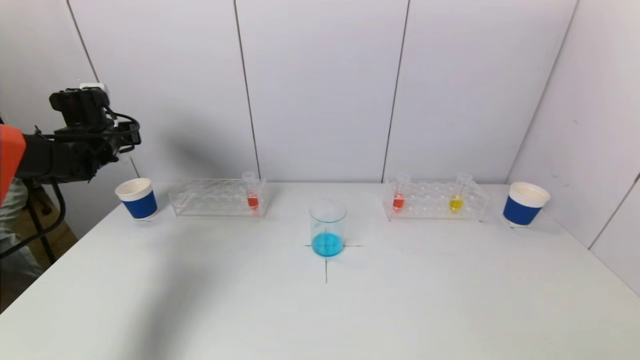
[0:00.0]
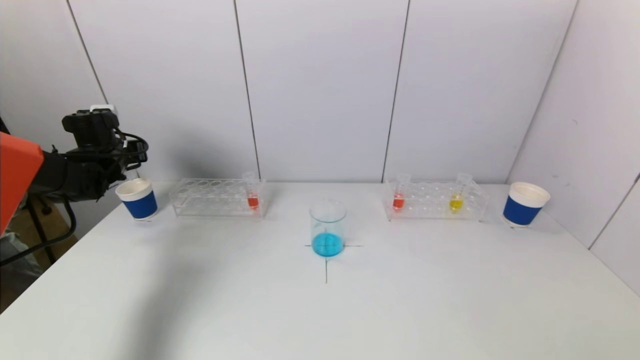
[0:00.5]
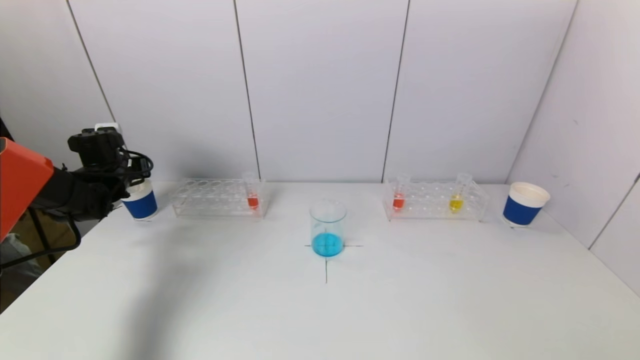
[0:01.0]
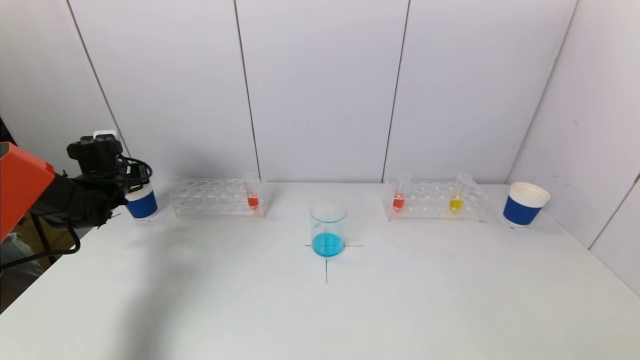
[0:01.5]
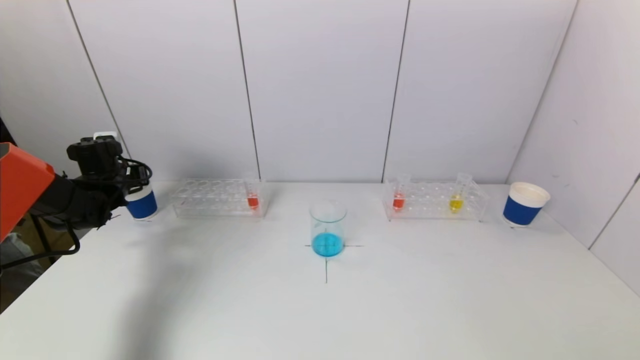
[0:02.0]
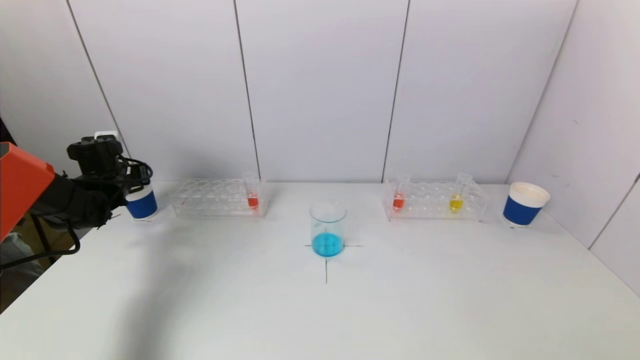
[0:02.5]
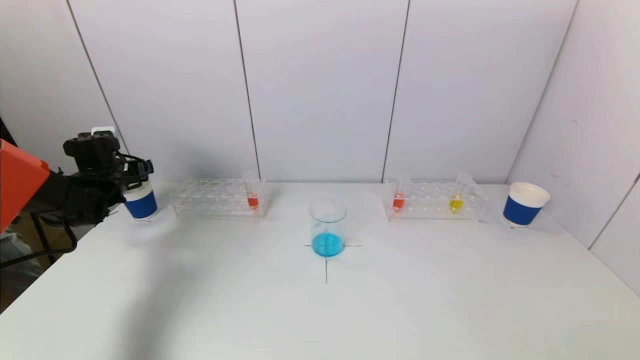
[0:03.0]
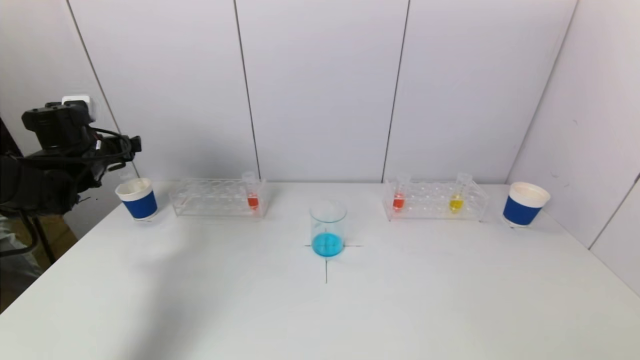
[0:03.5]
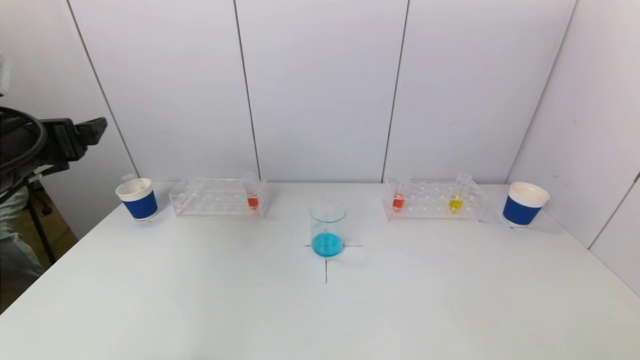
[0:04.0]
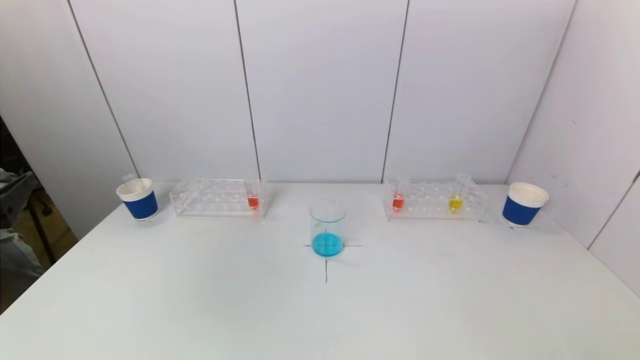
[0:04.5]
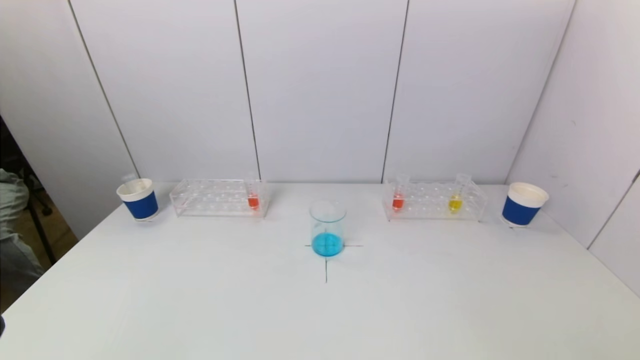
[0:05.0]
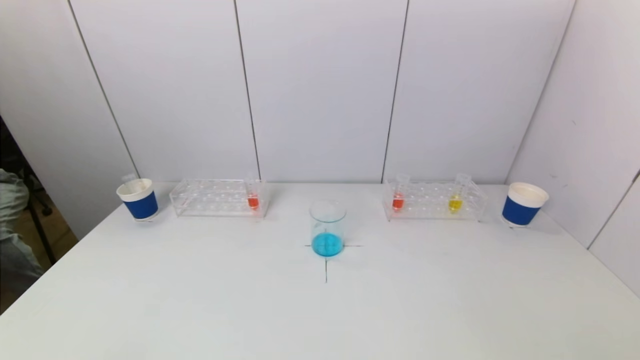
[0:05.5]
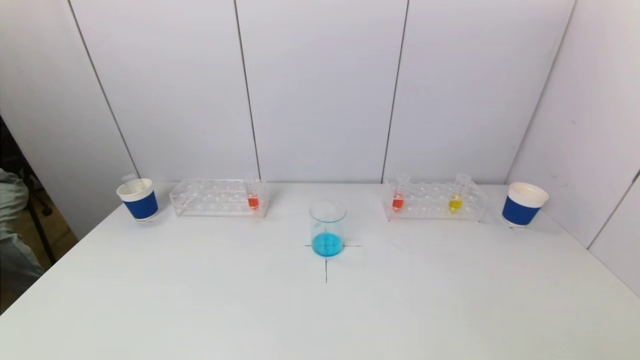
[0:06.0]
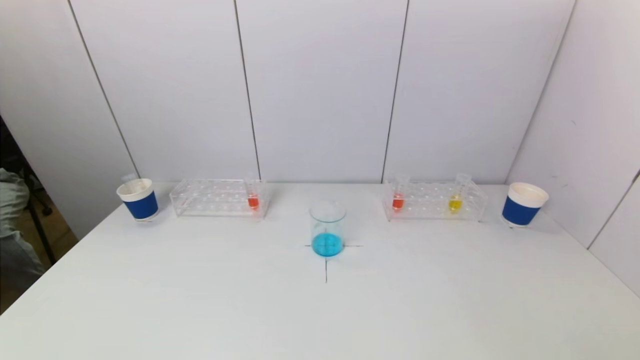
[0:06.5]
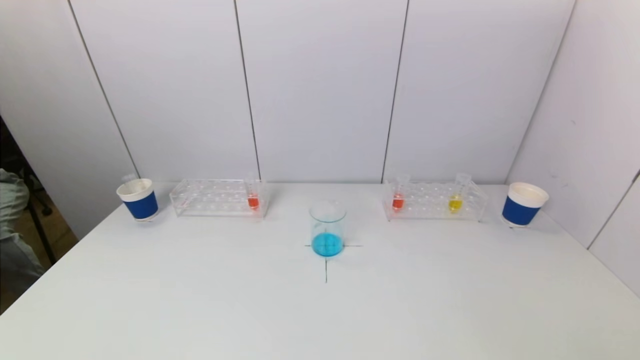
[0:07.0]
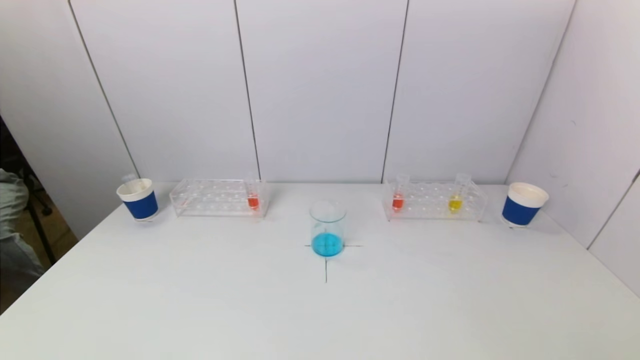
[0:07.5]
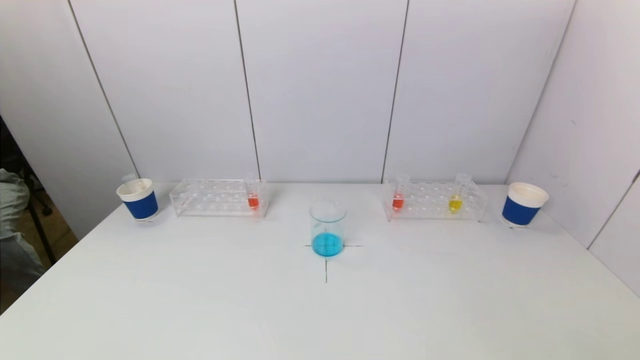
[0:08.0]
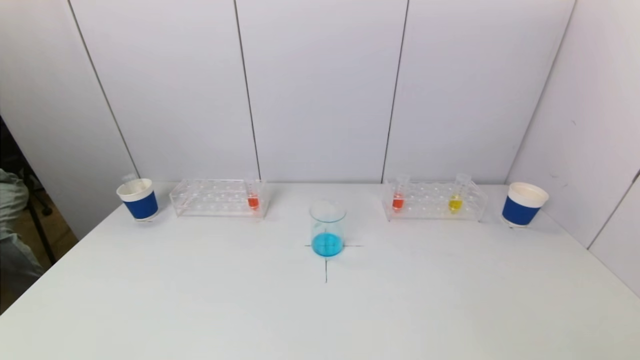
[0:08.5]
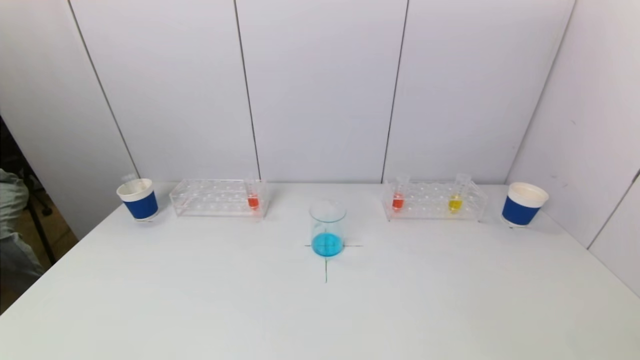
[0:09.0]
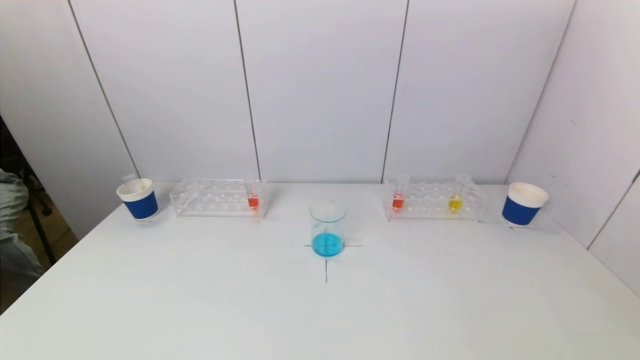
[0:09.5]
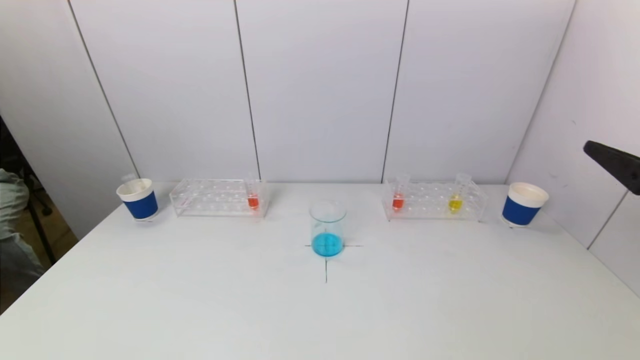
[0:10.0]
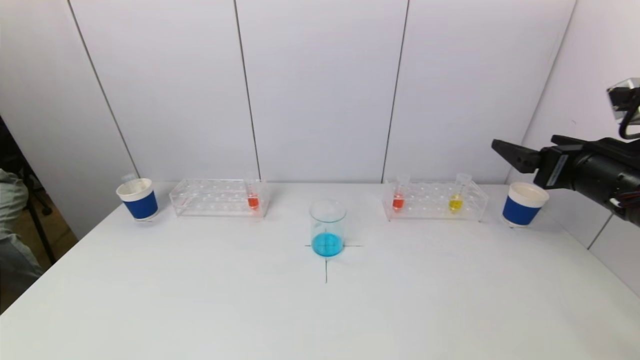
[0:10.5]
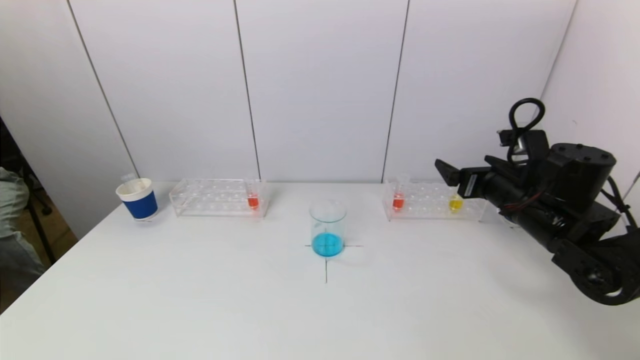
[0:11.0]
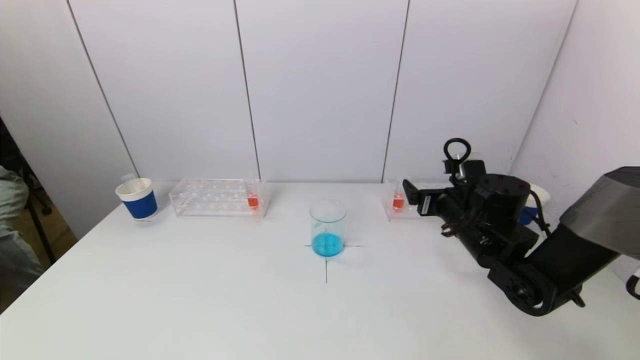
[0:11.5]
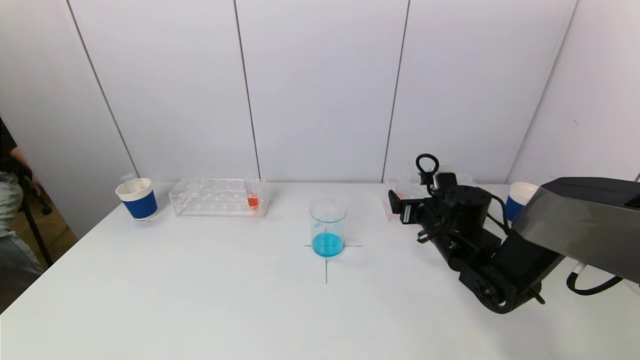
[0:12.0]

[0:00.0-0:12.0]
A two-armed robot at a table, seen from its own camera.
Task of the whole recording: pick up a test tube with pigment on left test tube rack and a test tube with pigment on right test tube rack by grippers and pour them into the beaker.
Step, 0:00.0 to 0:03.0: Place the test tube into the paper cup with the left gripper.
0:00.0 to 0:02.0: The left gripper goes about 10 cm downward.
0:02.0 to 0:04.0: The left gripper heads backward and upward, covering approximately 25 cm, and opens up.
0:04.0 to 0:06.0: The left gripper travels backward and downward by about 30 cm.
0:08.0 to 0:10.0: The right gripper heads forward and upward, covering approximately 25 cm.
0:10.0 to 0:12.0: The right gripper shifts roughly 30 cm forward, downward and to the left.

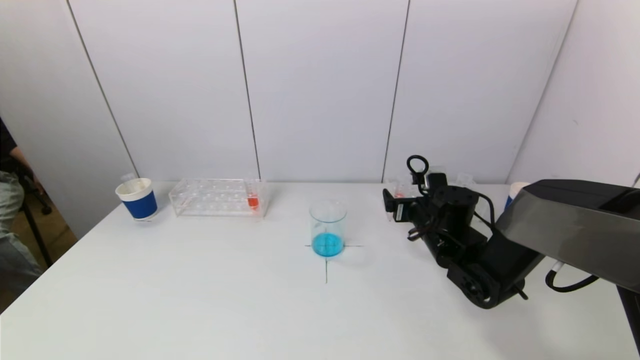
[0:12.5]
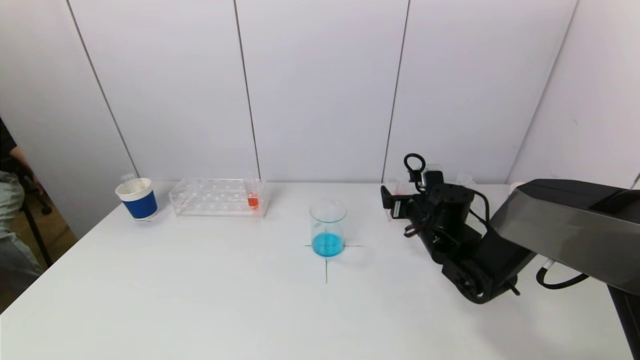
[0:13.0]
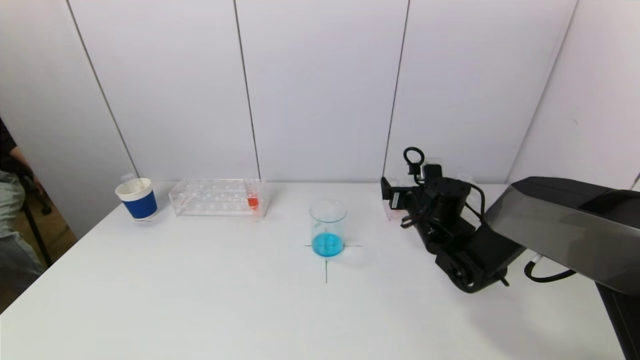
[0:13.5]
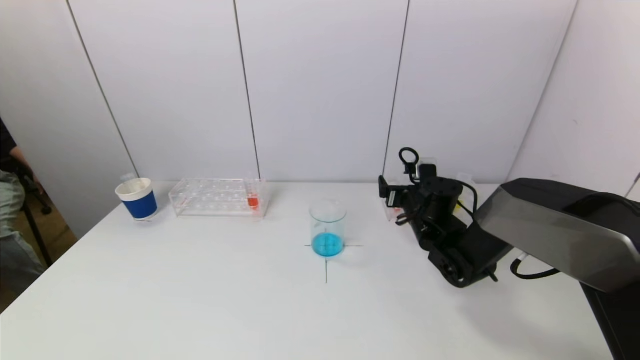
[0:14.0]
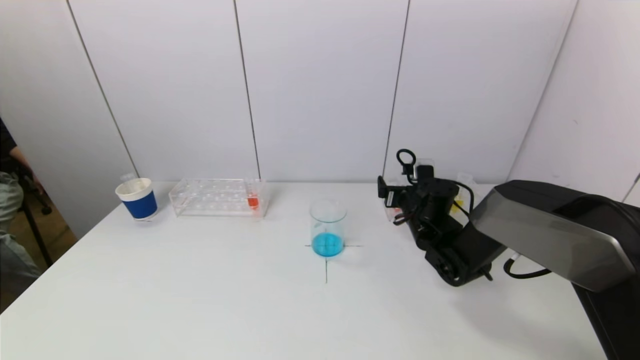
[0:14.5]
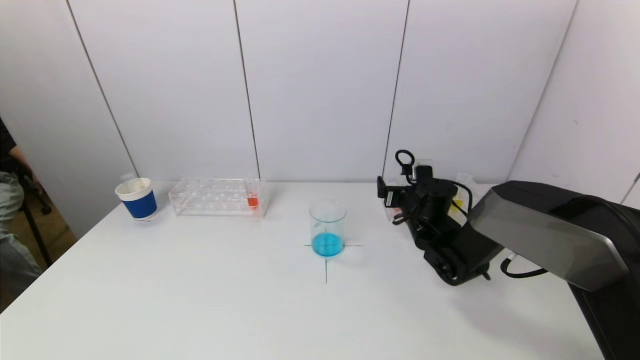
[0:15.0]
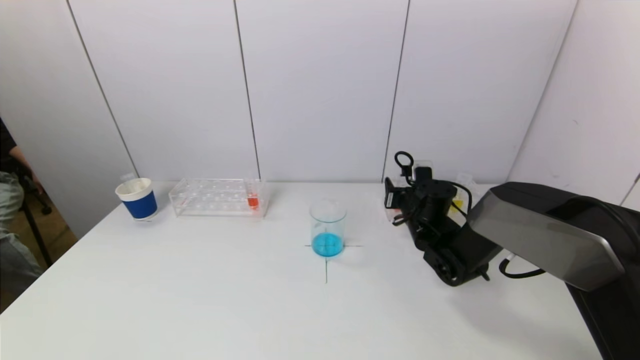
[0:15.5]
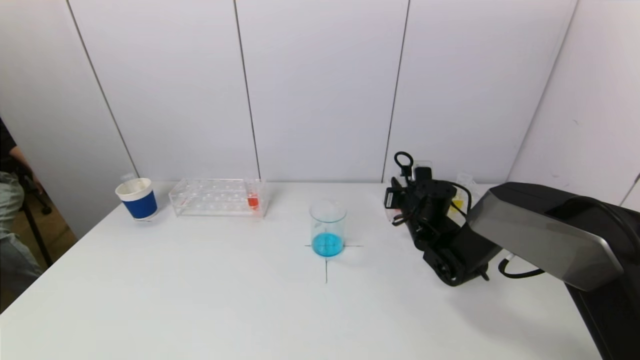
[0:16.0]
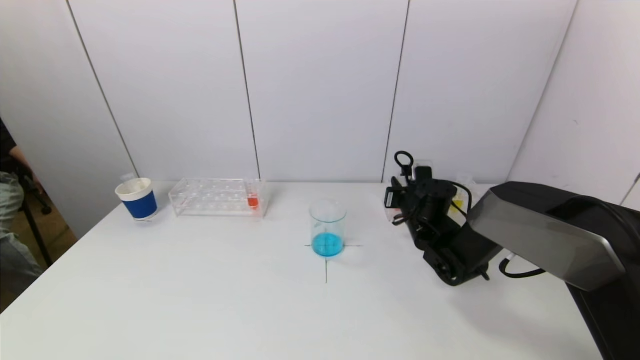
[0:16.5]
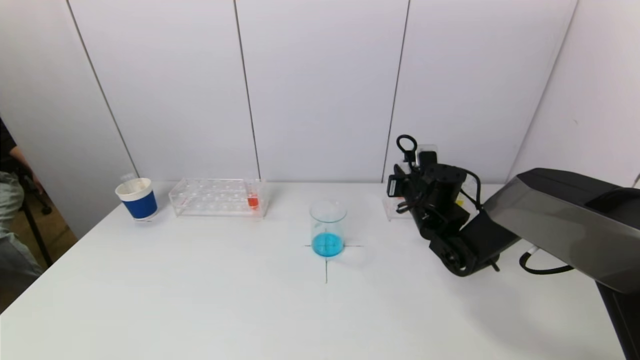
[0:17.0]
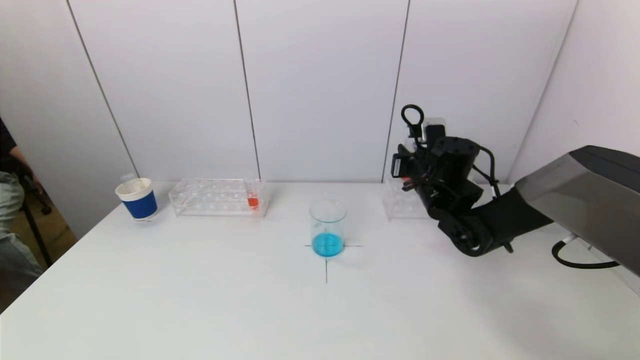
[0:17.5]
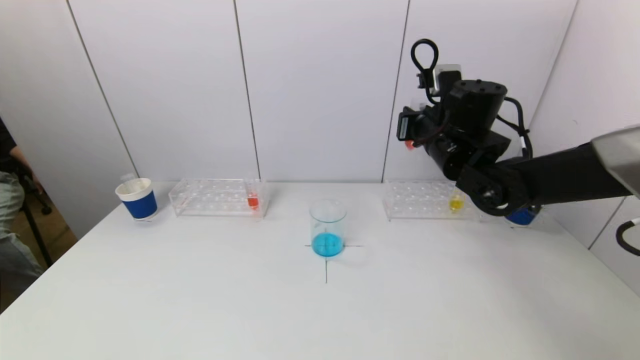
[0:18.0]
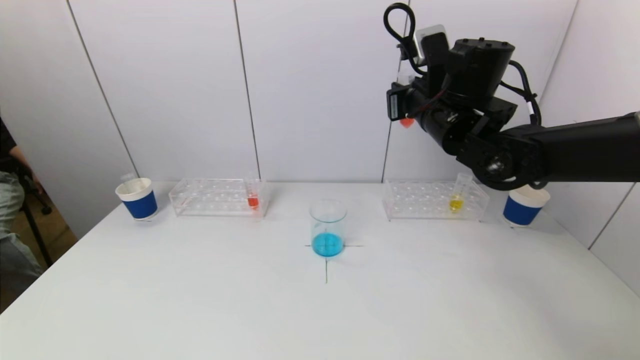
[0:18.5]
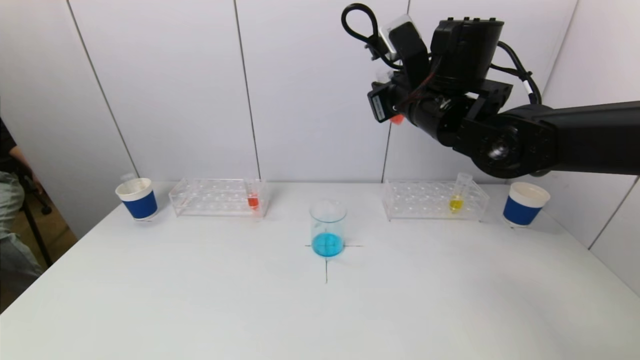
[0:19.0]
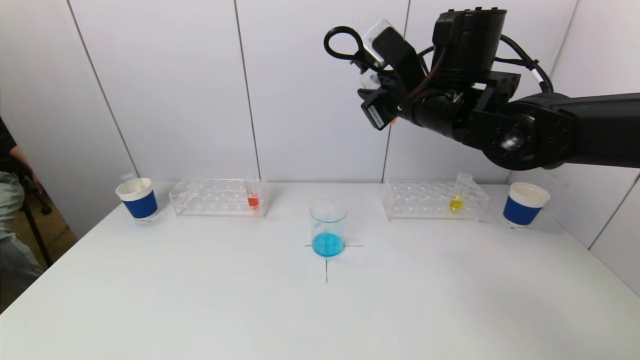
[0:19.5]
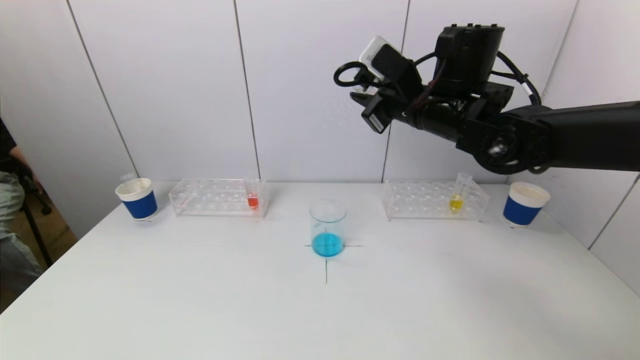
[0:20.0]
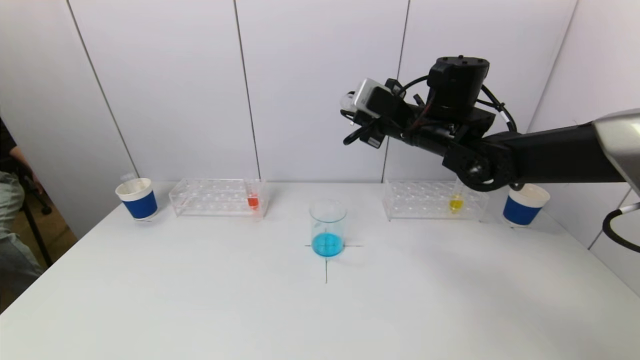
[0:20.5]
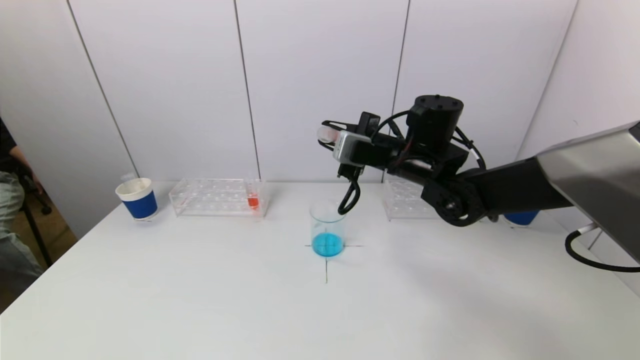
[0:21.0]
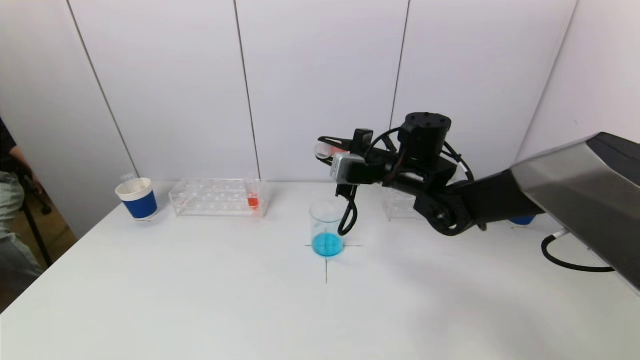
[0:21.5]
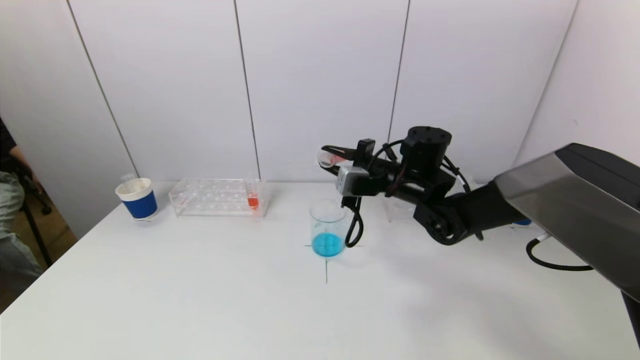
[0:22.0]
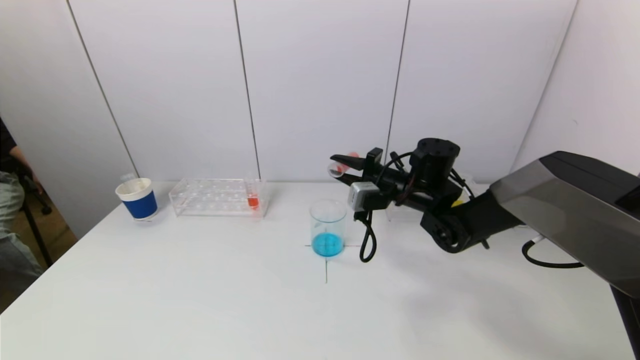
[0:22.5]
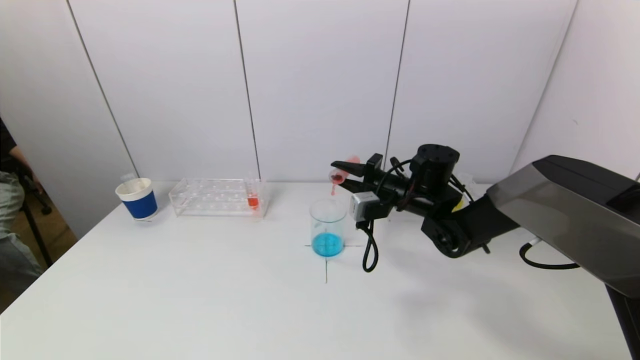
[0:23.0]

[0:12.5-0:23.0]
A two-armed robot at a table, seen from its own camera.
Task of the whole recording: pick up a test tube with pigment on left test tube rack and a test tube with pigment on right test tube rack by grippers and pour them into the beaker.
Step, 0:12.5 to 0:16.0: Grasp the red reagent with the right gripper.
0:12.5 to 0:14.5: There are only small adjustments of the grippers.
0:14.5 to 0:16.5: The right gripper closes.
0:16.5 to 0:19.0: The right gripper shifts approximately 25 cm upward.
0:19.0 to 0:21.0: The right gripper travels downward by some 10 cm.
0:21.0 to 0:23.0: The right gripper shifts about 10 cm downward.
